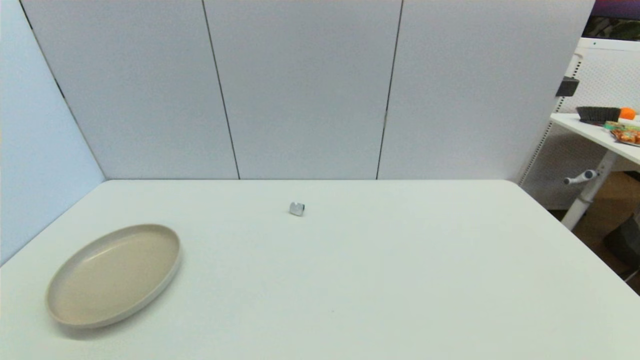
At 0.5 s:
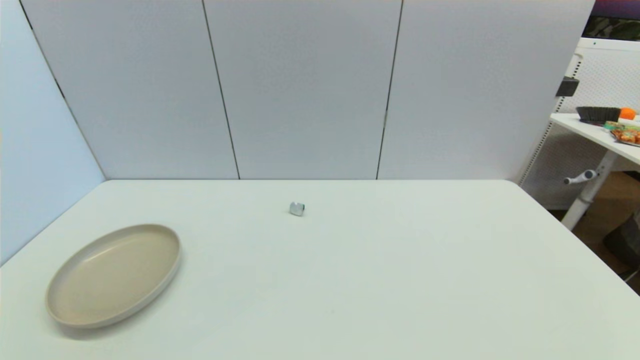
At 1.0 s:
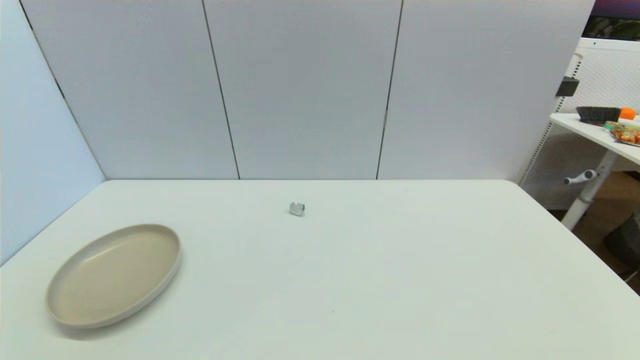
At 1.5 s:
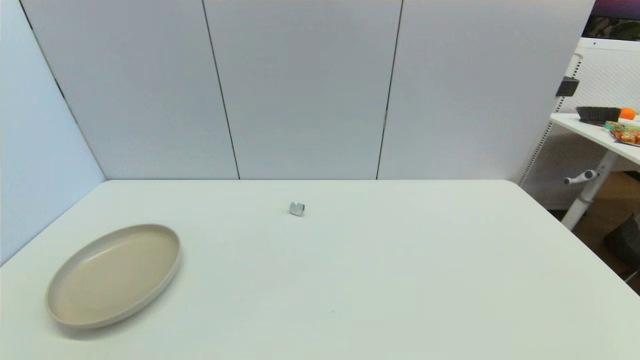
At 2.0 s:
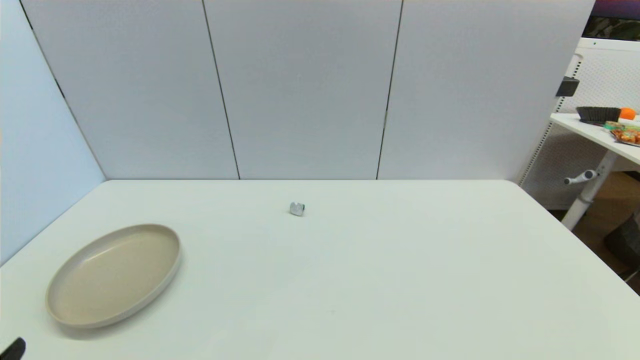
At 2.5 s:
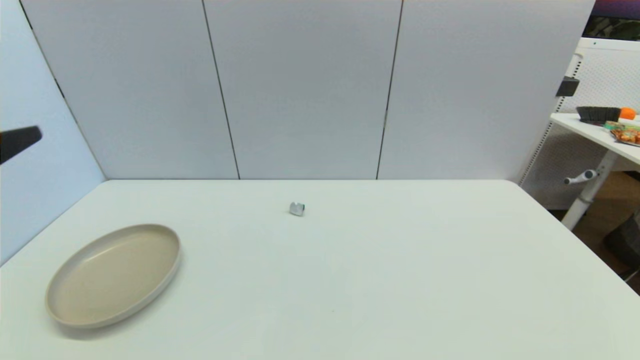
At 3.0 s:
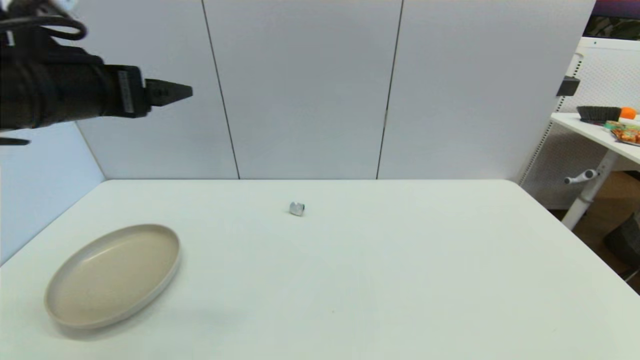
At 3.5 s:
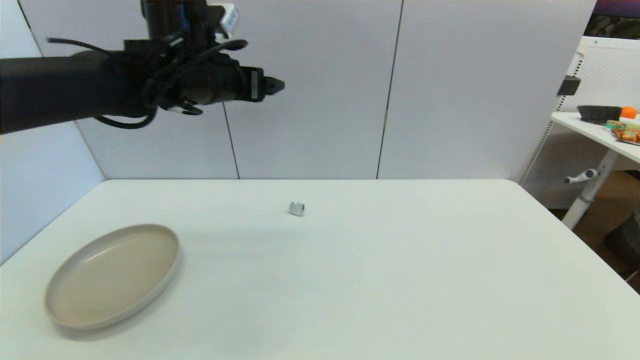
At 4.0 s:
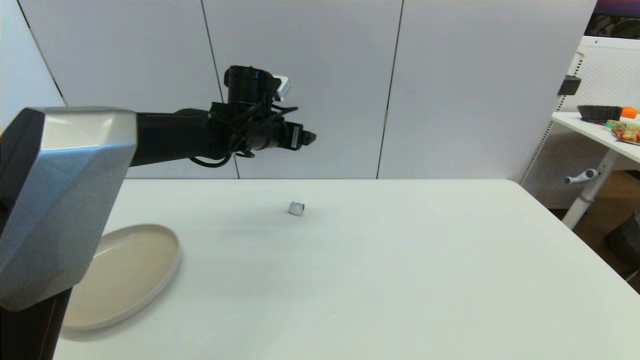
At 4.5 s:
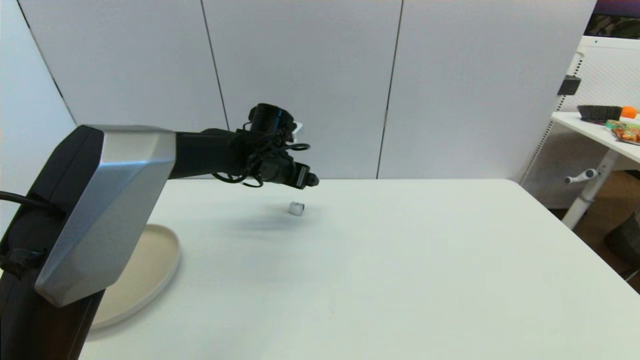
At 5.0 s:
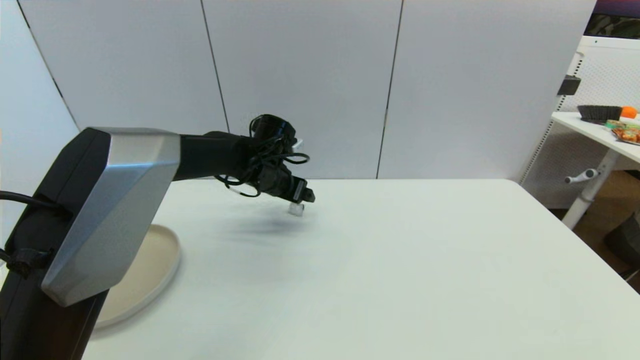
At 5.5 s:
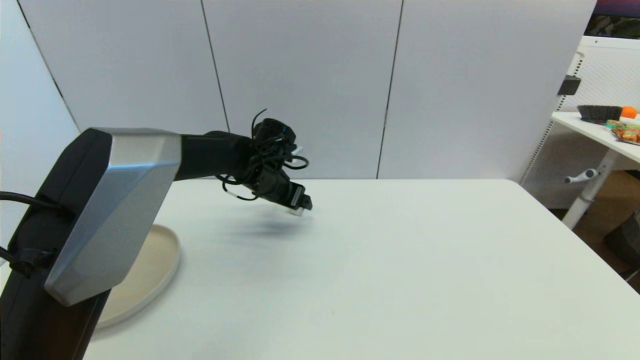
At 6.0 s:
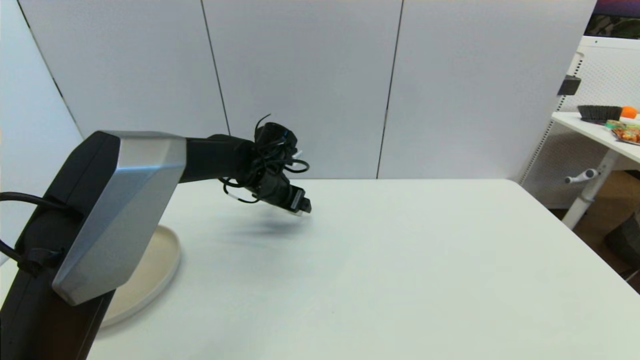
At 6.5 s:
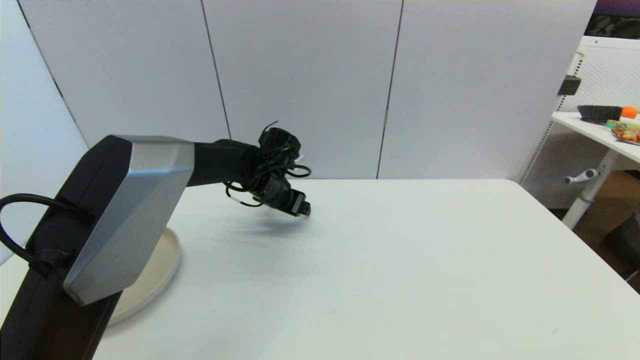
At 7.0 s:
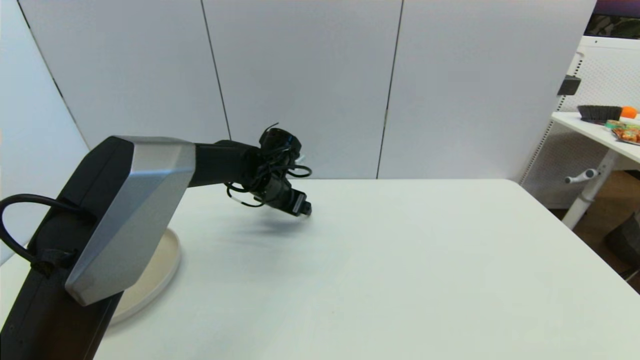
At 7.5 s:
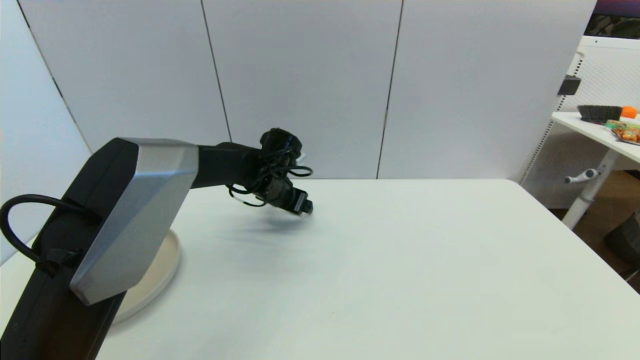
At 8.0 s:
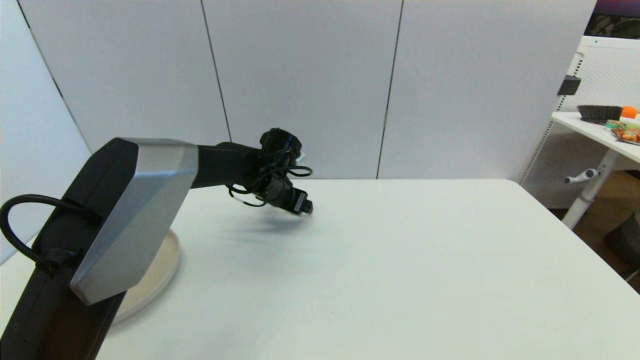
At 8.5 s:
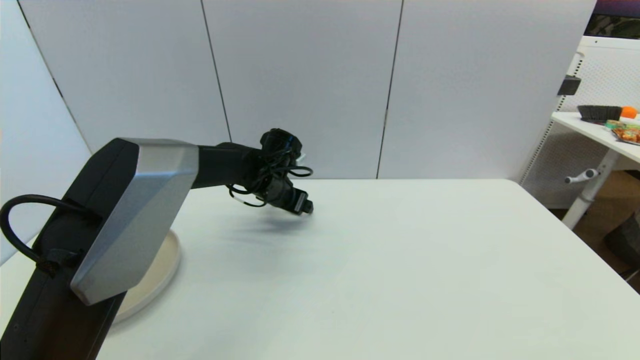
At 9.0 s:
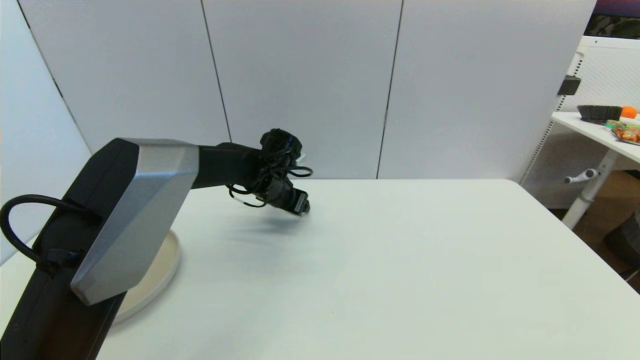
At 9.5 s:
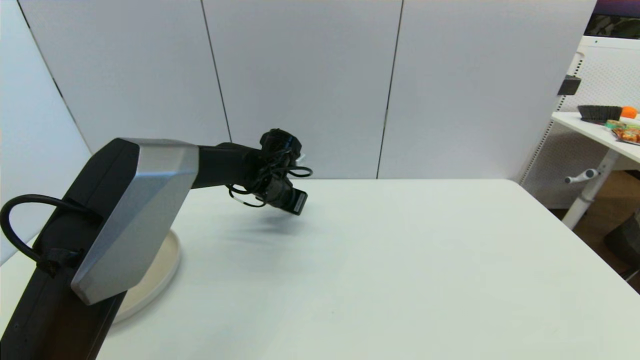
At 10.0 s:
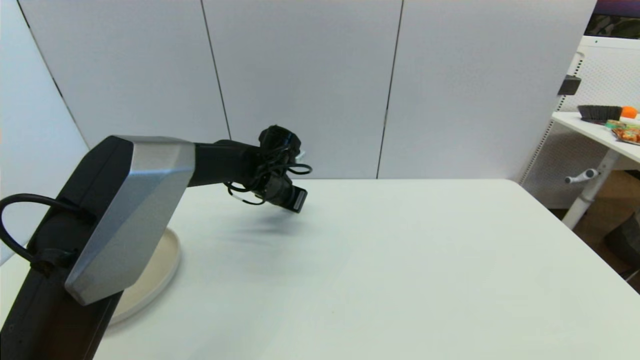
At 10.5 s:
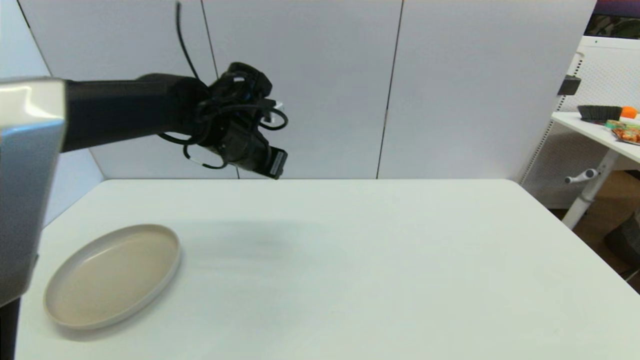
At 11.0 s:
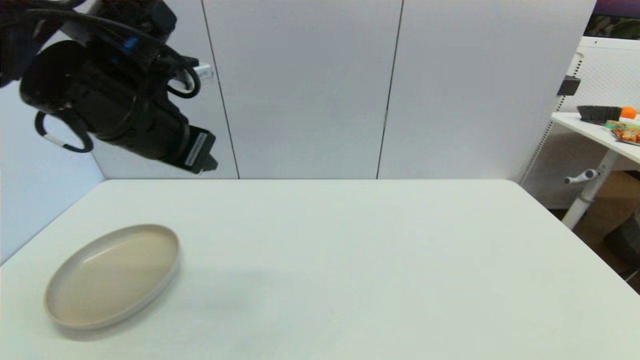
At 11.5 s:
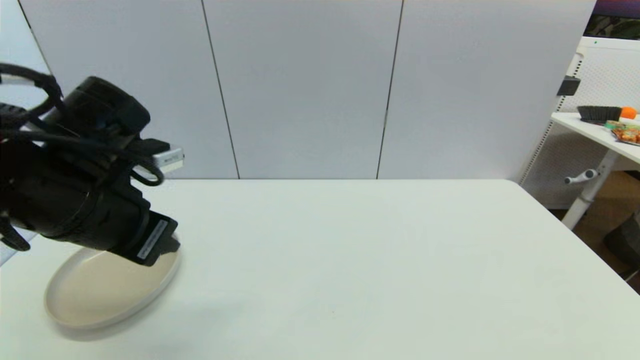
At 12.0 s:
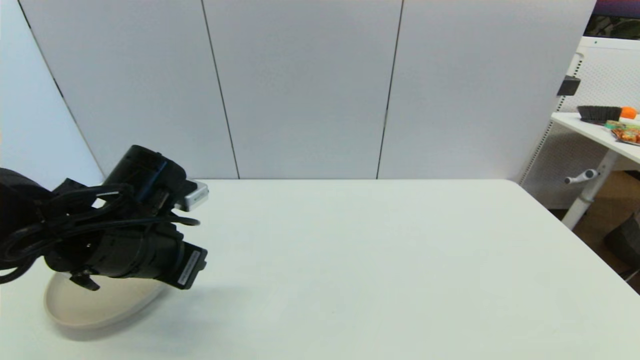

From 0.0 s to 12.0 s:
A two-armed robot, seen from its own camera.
Step, from 2.0 s to 9.5 s: Grasp the coffee capsule with left gripper.
From 2.0 s to 4.0 s: The left gripper shifts roughly 50 cm forward and to the right.
From 4.0 s to 6.0 s: The left gripper is displaced downward by some 10 cm.
From 6.0 s to 8.0 s: The grippers move only a little.
From 8.0 s to 10.0 s: The left gripper closes up.
From 10.0 s to 12.0 s: The left gripper heads backward and to the left, covering roughly 25 cm.

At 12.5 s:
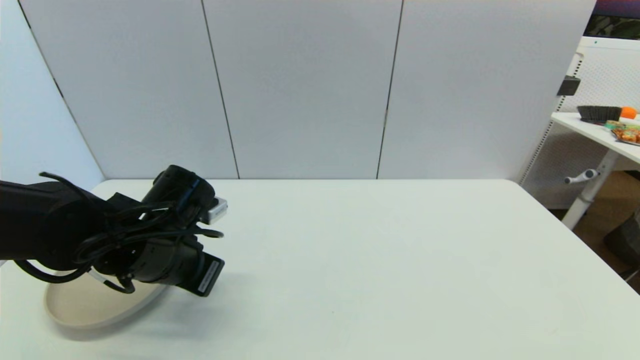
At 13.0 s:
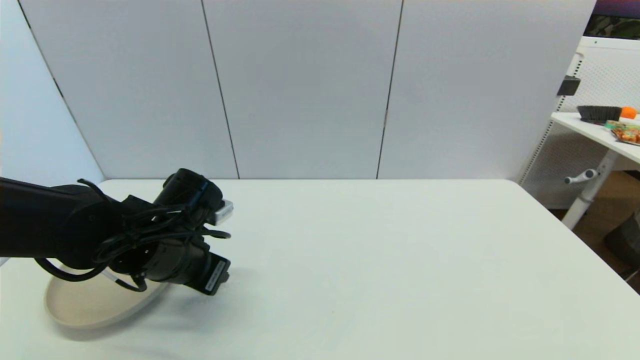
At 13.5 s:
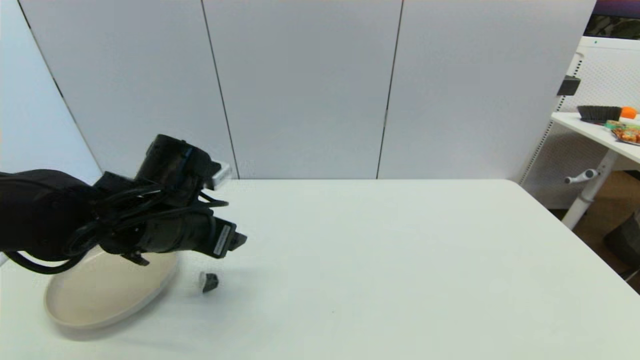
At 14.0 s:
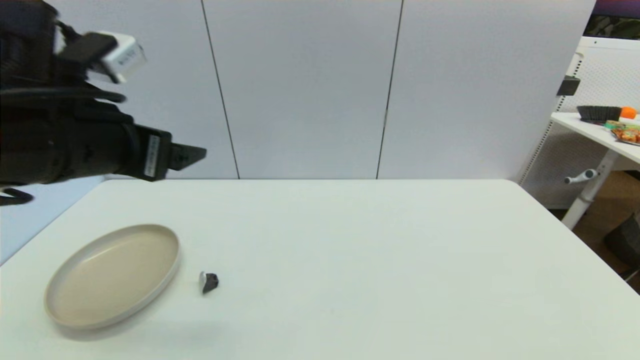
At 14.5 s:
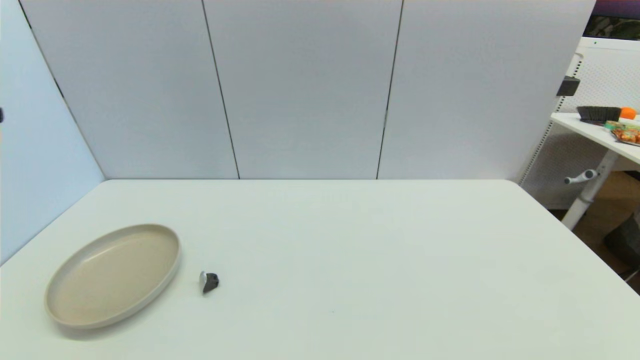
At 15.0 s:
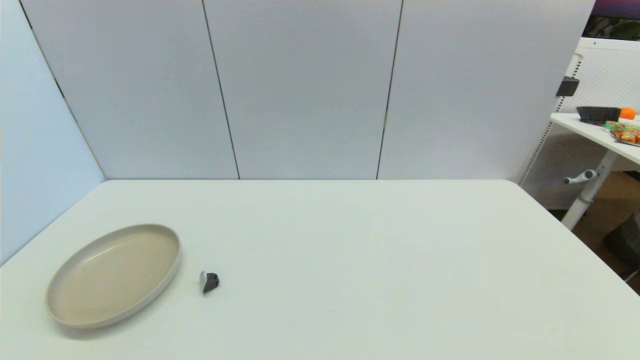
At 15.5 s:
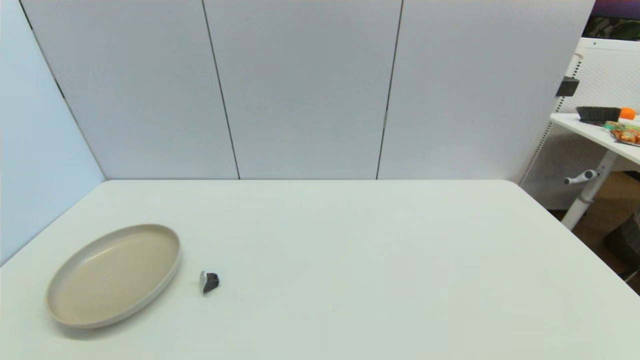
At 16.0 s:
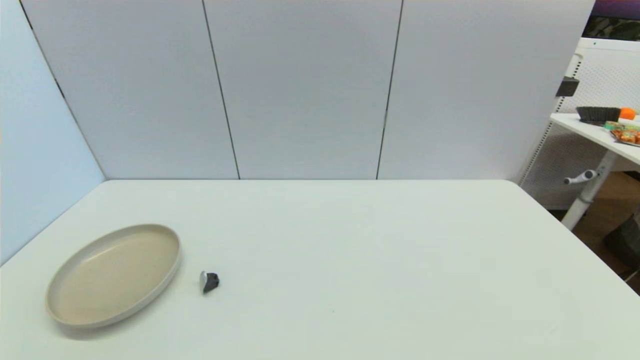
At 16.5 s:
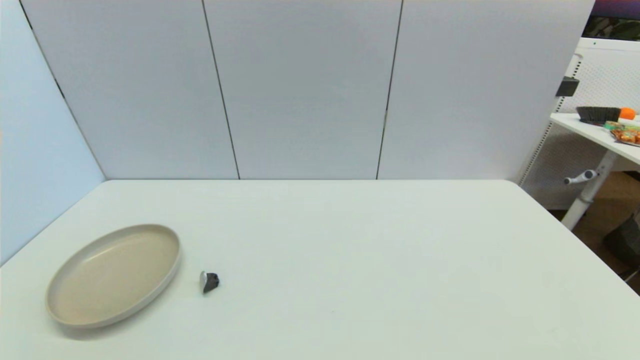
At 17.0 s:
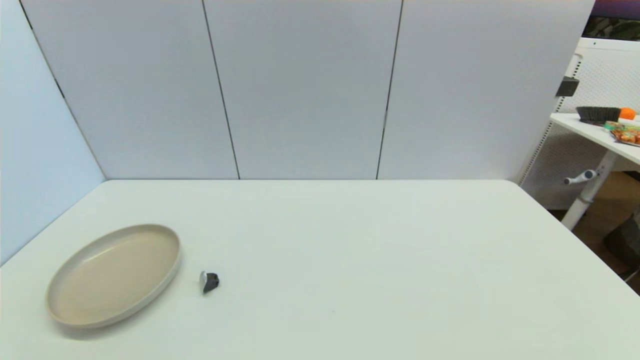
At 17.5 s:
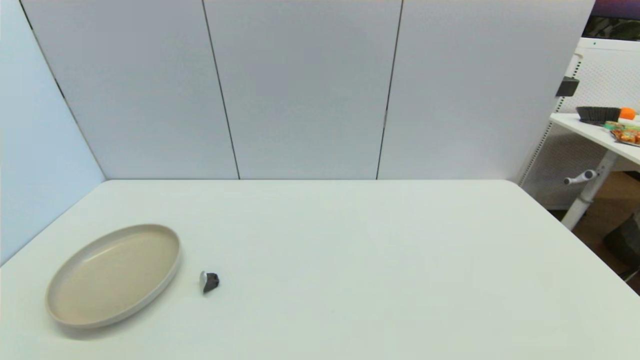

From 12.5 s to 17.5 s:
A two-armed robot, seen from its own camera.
From 12.5 s to 15.0 s: The left gripper goes about 30 cm backward, to the left and upward, and opens up.

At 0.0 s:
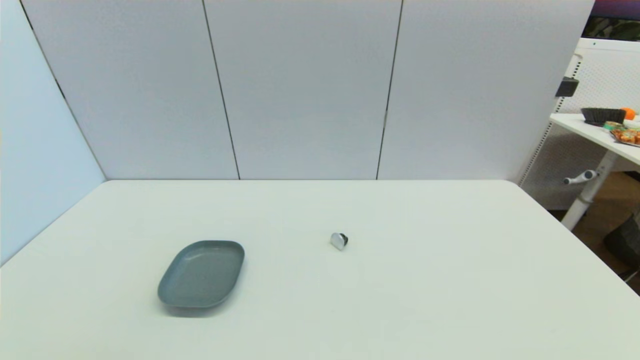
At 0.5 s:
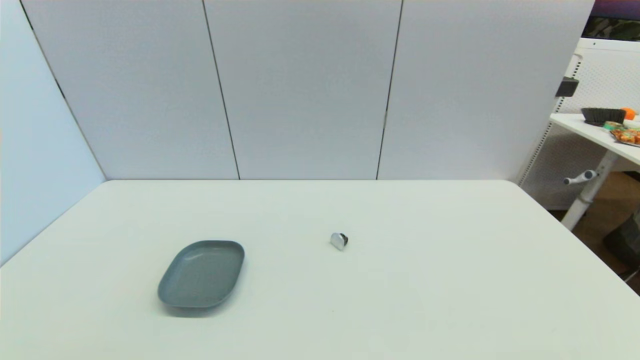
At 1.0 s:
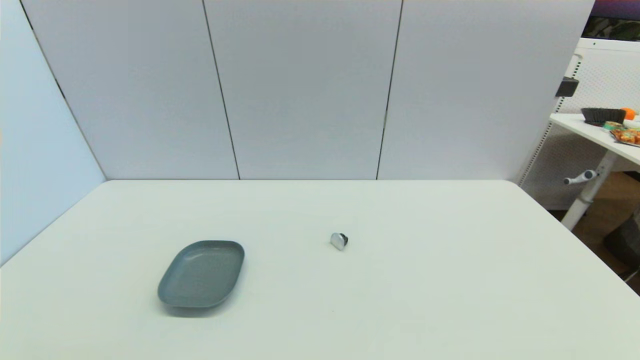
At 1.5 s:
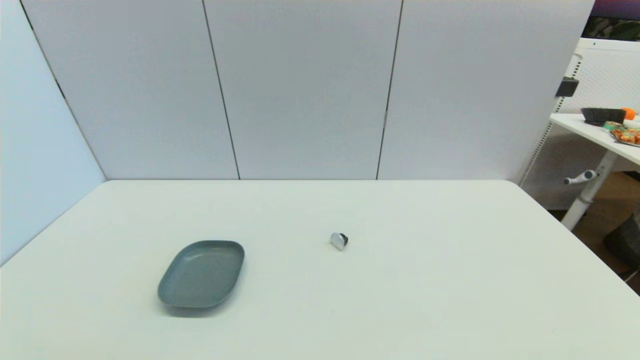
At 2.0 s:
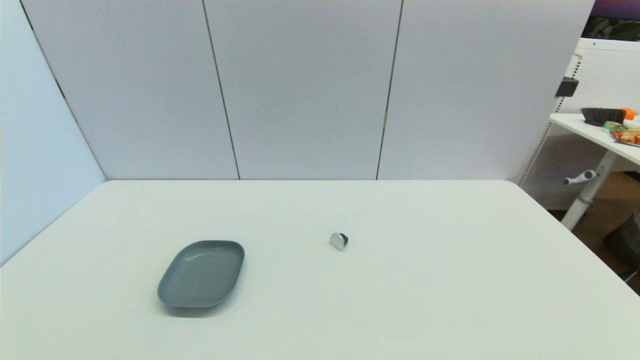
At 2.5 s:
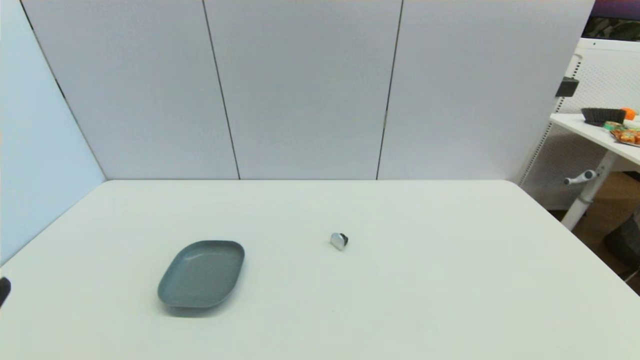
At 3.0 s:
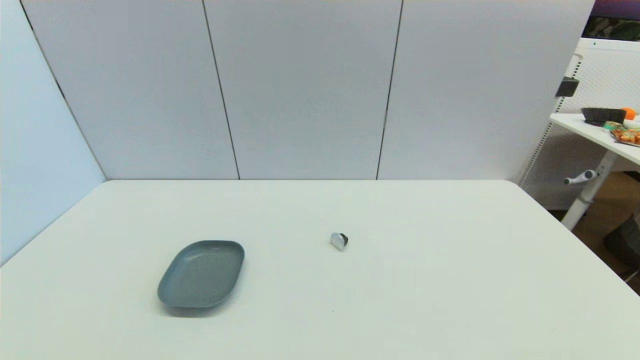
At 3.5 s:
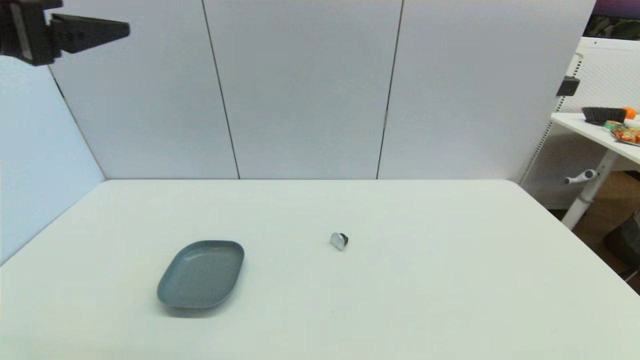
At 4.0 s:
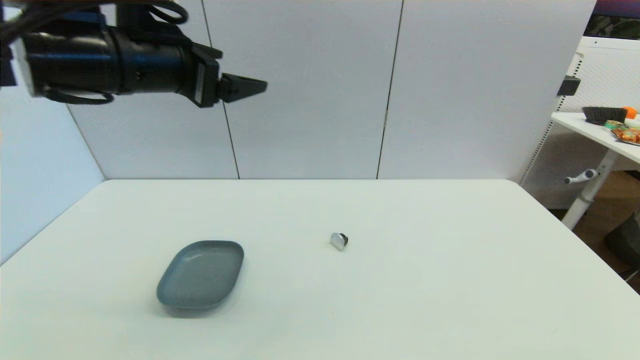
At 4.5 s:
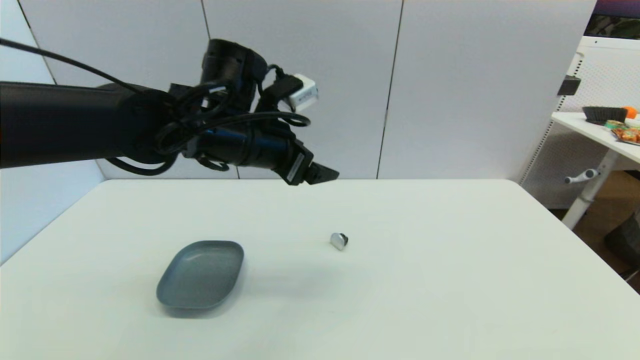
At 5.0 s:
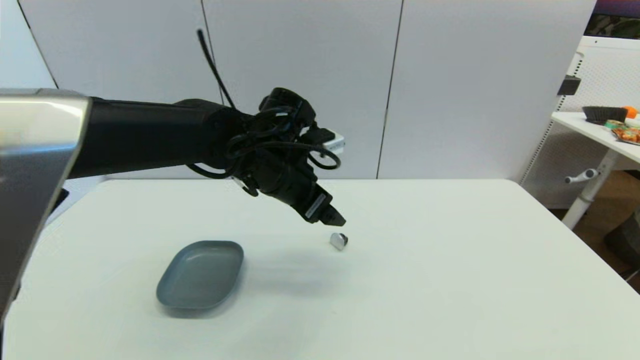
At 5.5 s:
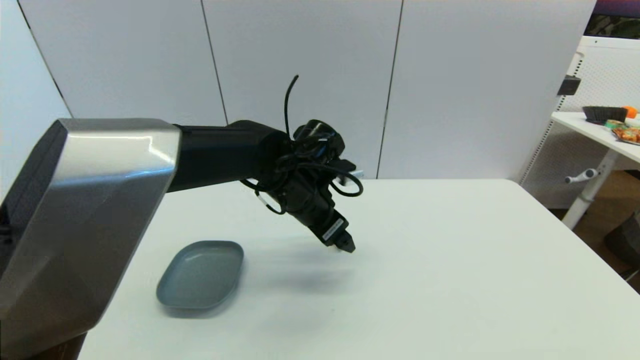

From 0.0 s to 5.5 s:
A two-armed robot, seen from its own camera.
From 2.0 s to 3.5 s: The left gripper heads upward and forward, covering approximately 35 cm.
From 3.5 s to 5.5 s: The left gripper is displaced to the right, downward and forward by roughly 35 cm.
